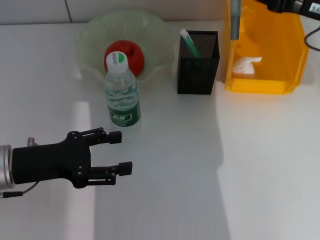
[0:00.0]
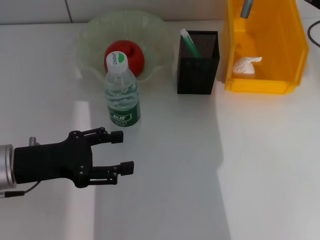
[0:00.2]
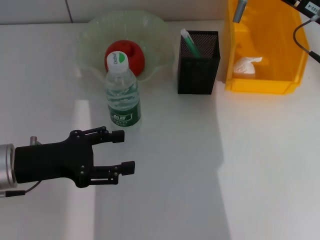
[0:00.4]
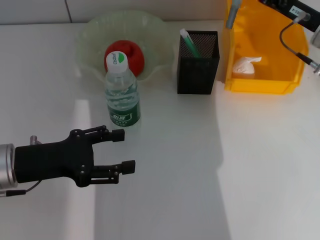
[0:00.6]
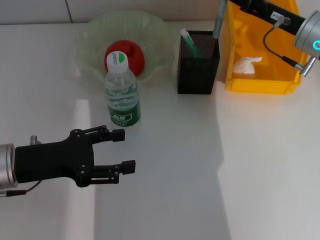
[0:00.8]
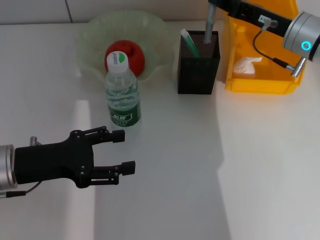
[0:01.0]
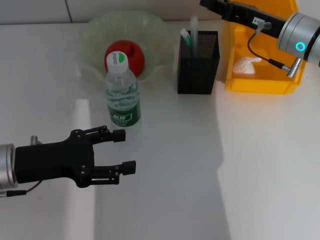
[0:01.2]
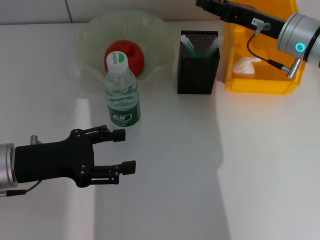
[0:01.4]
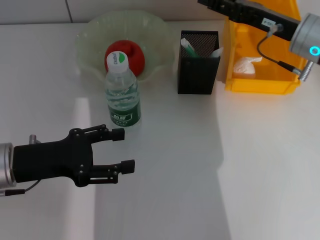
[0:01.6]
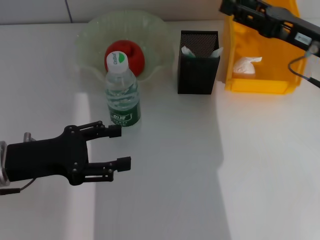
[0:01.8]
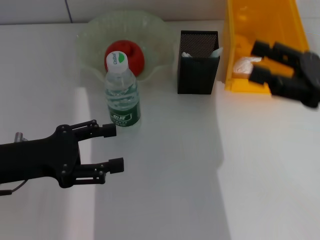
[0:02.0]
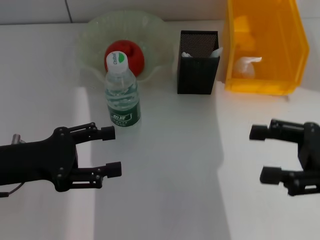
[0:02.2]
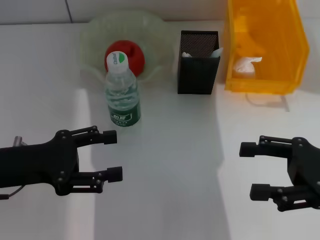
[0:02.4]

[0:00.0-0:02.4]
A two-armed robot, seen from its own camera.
Step, 0:00.0 to 0:01.8: Place the gray glue into the pen holder with the right hand.
0:00.0 to 0:01.2: The right gripper travels downward and forward by some 10 cm.
0:01.2 to 0:02.4: The right gripper moves backward and to the right, approximately 20 cm, and opens up.

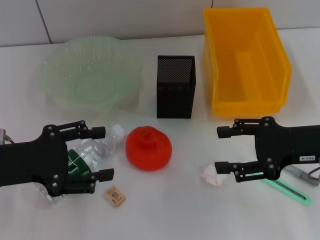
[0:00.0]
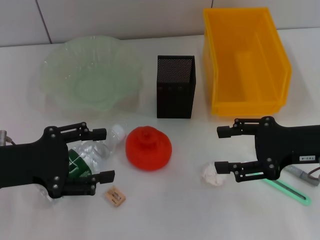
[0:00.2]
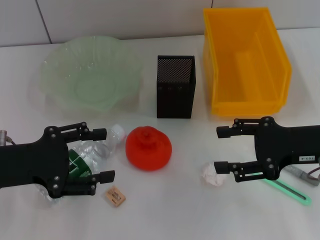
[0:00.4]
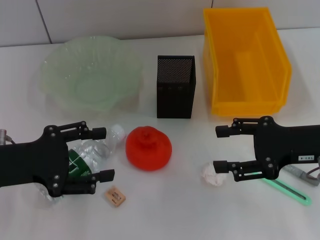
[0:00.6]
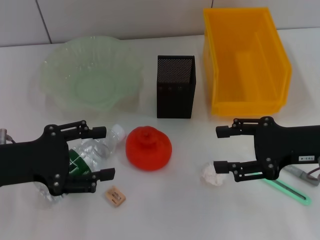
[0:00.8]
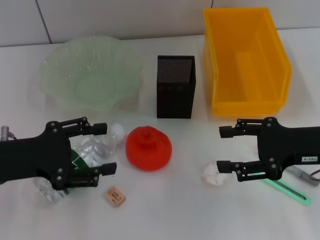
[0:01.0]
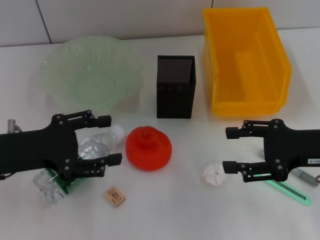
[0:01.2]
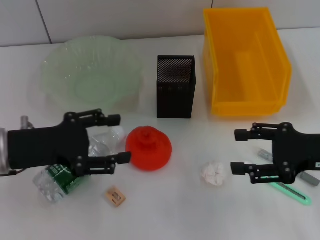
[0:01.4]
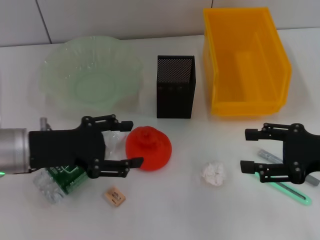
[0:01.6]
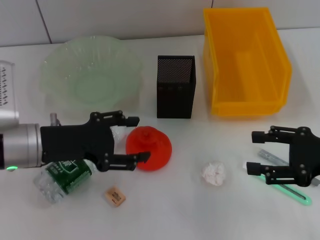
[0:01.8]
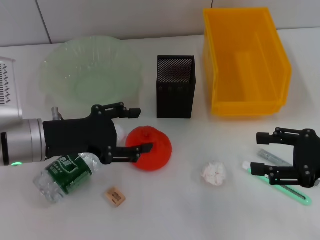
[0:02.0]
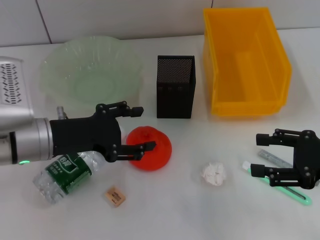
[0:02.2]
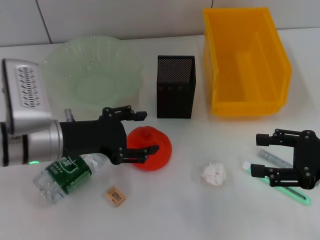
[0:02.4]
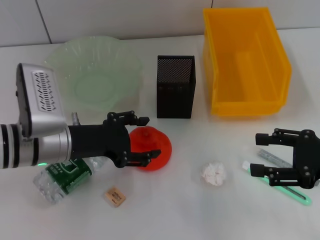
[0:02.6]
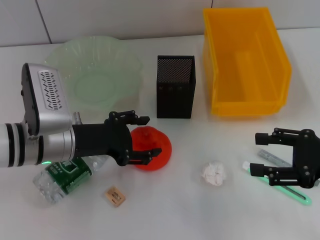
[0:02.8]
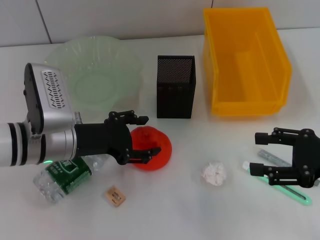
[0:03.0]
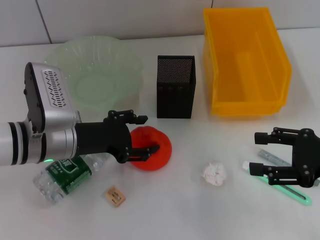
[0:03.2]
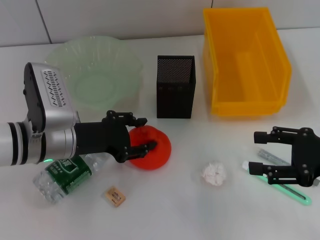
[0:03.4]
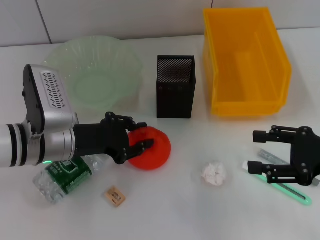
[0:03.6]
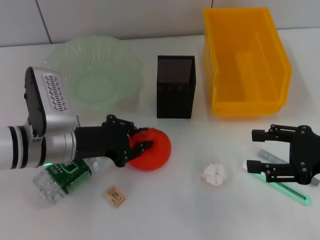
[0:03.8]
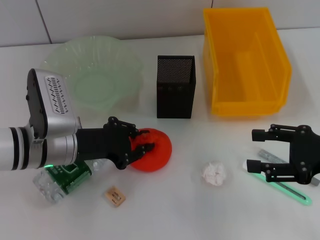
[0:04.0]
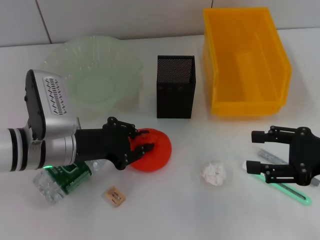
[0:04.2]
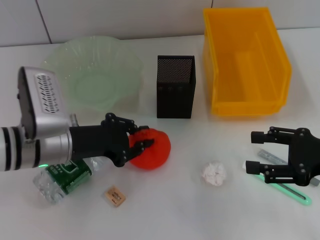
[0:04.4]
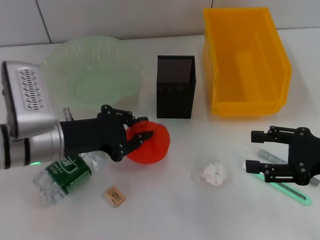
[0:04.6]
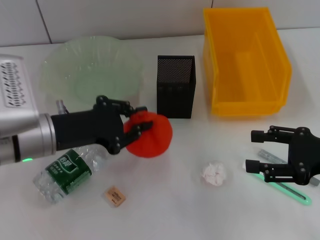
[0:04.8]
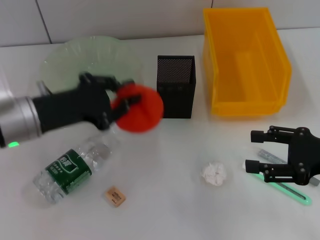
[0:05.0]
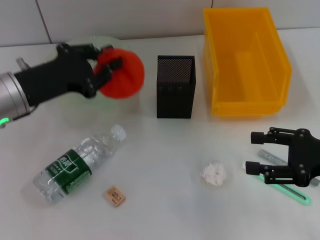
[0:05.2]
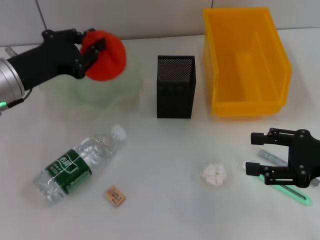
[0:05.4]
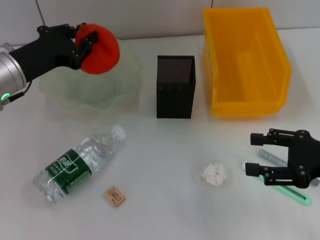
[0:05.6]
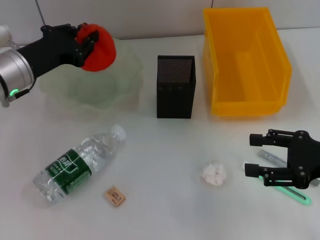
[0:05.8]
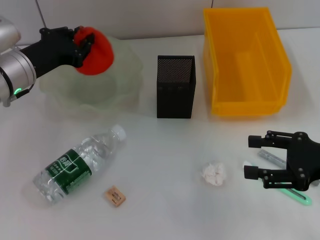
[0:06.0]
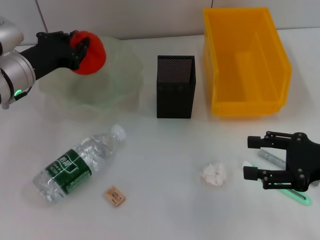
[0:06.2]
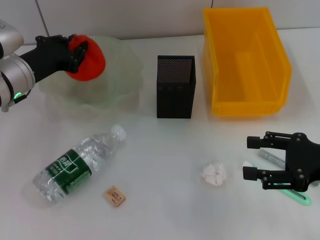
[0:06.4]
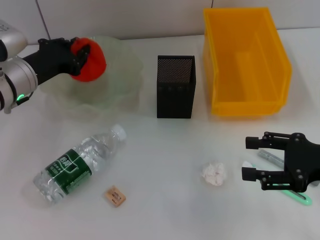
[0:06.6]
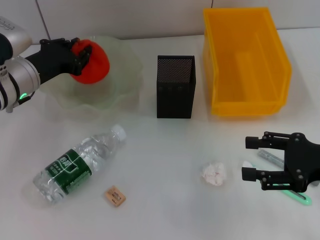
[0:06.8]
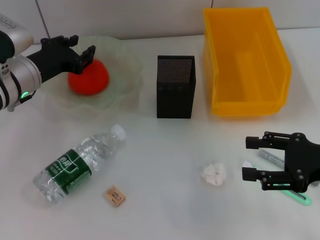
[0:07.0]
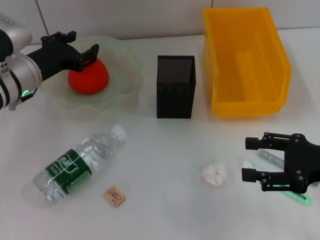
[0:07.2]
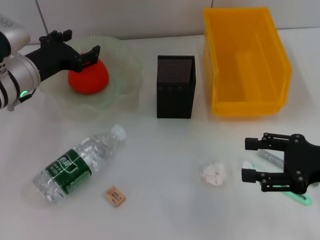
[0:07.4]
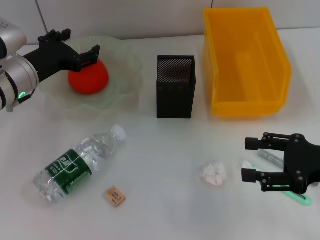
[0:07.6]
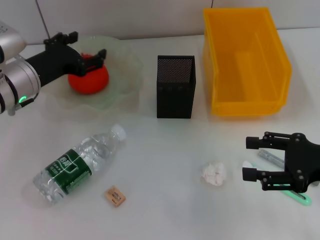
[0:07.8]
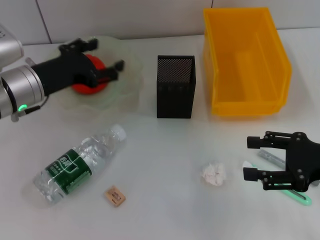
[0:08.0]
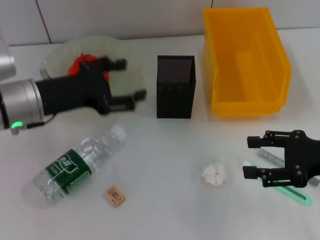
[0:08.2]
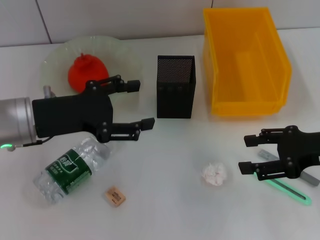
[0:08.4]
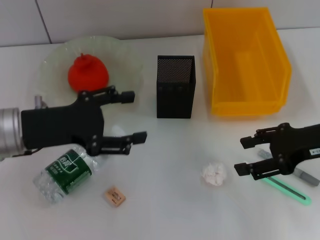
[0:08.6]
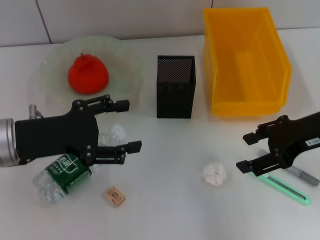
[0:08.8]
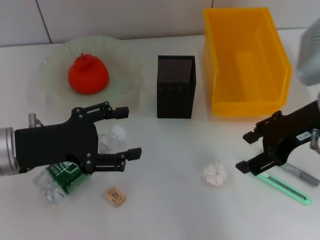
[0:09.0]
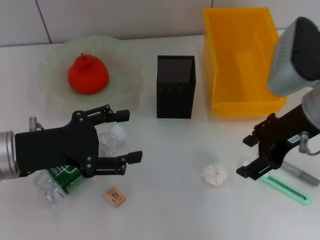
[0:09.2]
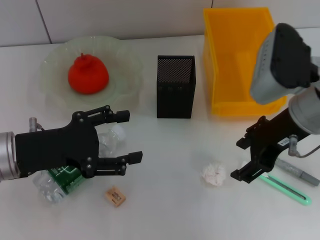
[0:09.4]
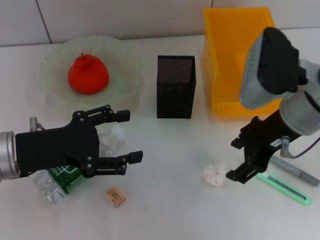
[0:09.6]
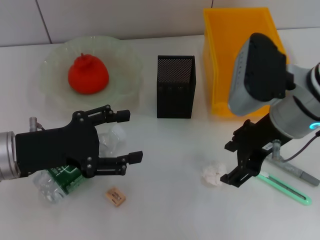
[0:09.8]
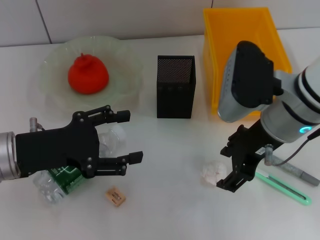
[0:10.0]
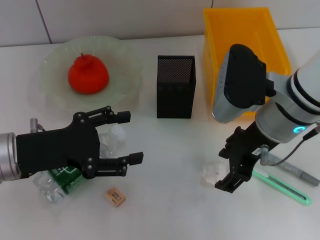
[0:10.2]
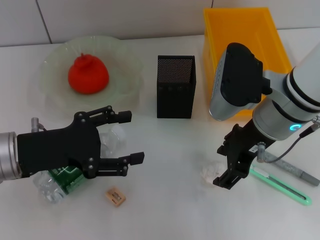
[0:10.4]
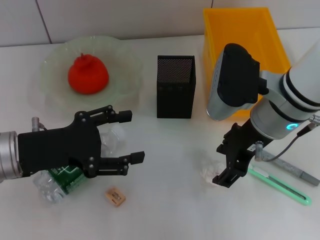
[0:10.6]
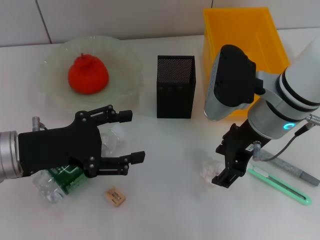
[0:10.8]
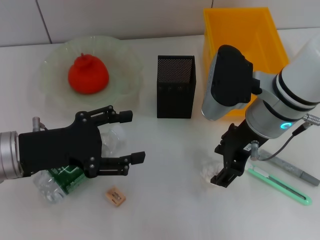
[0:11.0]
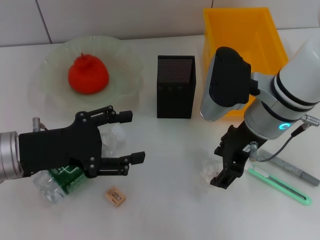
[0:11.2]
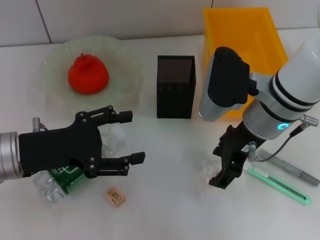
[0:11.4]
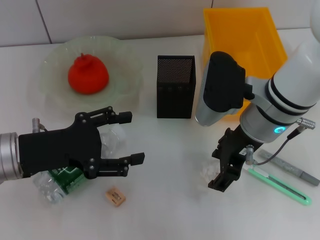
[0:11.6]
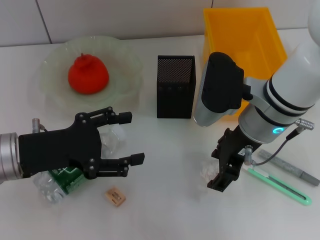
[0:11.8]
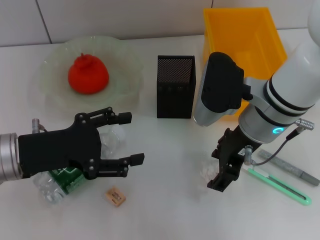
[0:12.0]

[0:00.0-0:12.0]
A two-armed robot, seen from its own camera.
Step, 0:00.0 to 0:04.4: Grab the orange with the left hand.
Step, 0:04.6 to 0:07.4: Place the orange into the fruit bowl with the left hand.
0:00.0 to 0:01.6: The left gripper ends up some 5 cm from where it was.
0:01.6 to 0:03.0: The left gripper changes place by roughly 5 cm.
0:03.0 to 0:04.4: The left gripper closes.
0:04.4 to 0:06.0: The left gripper travels forward by about 10 cm.
0:06.0 to 0:07.6: The left gripper opens.
0:07.6 to 0:09.0: The right gripper travels upward, forward and to the left by approximately 15 cm; the left gripper travels backward by roughly 10 cm.
0:09.0 to 0:10.4: The right gripper shifts roughly 10 cm to the left.
0:10.4 to 0:12.0: The grippers make only small movements.

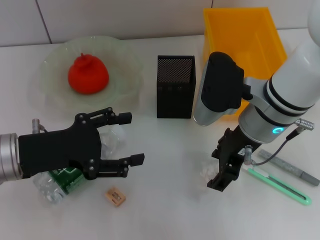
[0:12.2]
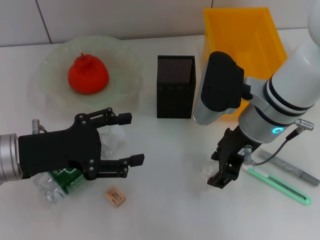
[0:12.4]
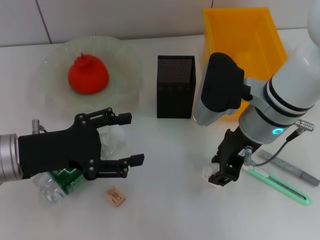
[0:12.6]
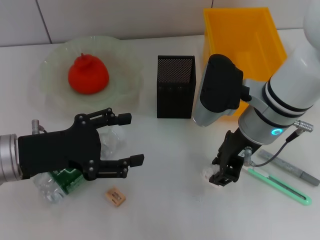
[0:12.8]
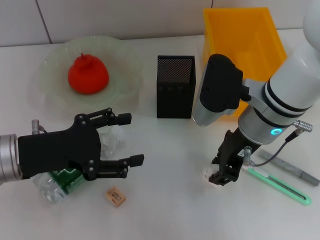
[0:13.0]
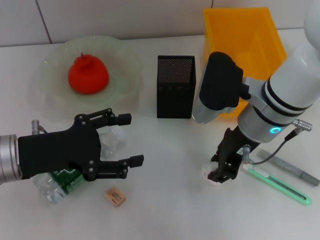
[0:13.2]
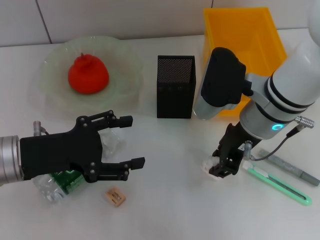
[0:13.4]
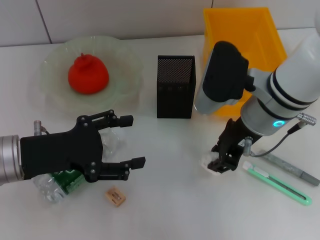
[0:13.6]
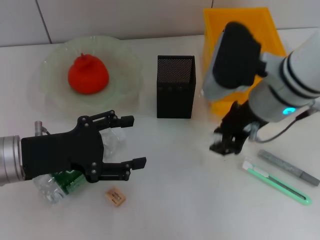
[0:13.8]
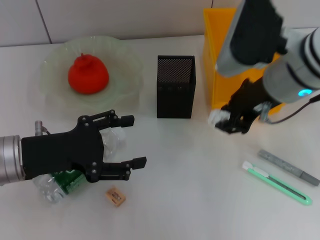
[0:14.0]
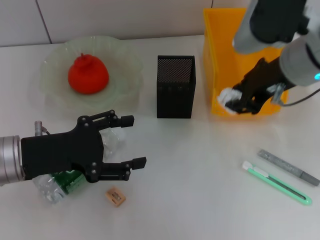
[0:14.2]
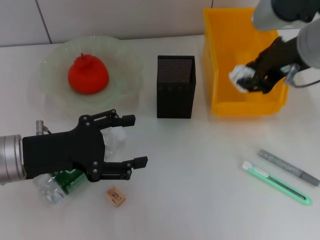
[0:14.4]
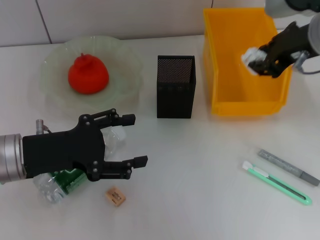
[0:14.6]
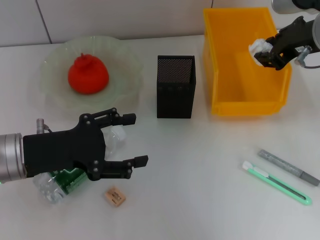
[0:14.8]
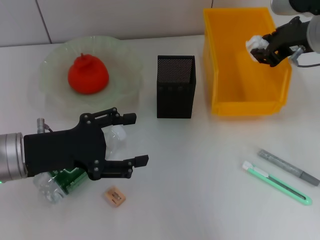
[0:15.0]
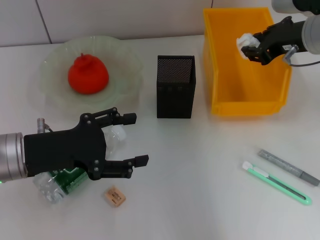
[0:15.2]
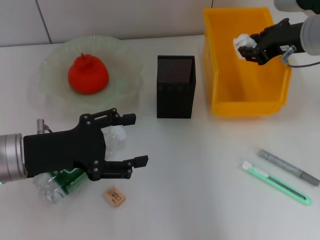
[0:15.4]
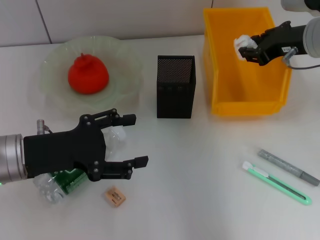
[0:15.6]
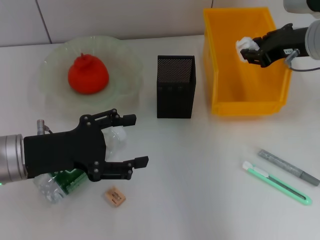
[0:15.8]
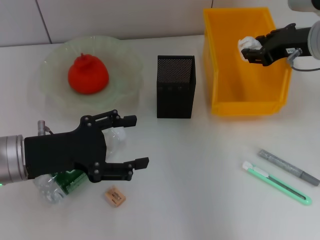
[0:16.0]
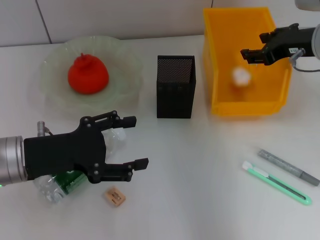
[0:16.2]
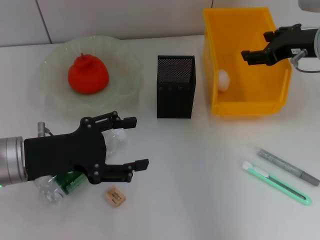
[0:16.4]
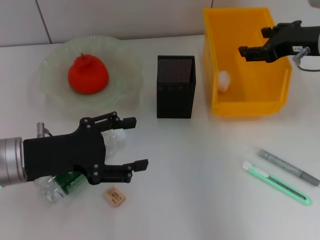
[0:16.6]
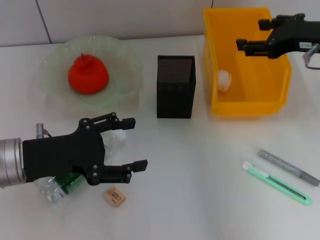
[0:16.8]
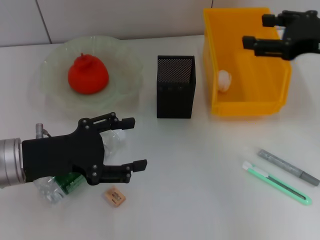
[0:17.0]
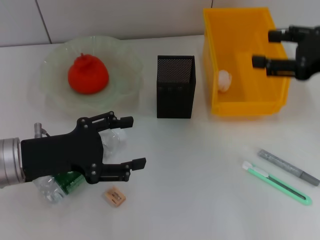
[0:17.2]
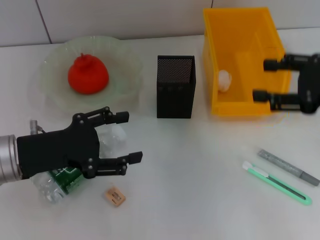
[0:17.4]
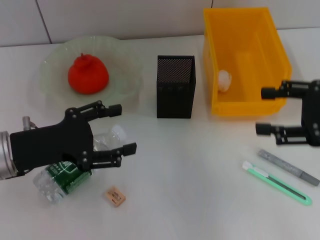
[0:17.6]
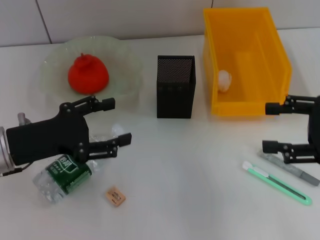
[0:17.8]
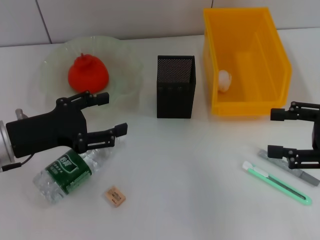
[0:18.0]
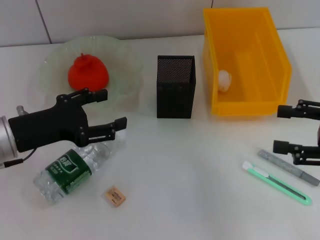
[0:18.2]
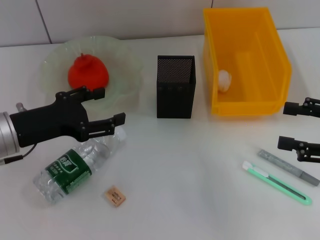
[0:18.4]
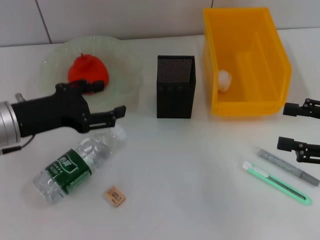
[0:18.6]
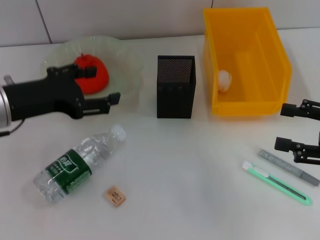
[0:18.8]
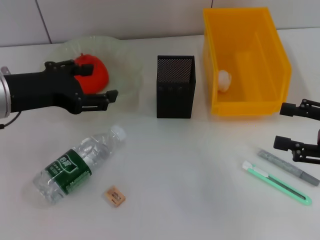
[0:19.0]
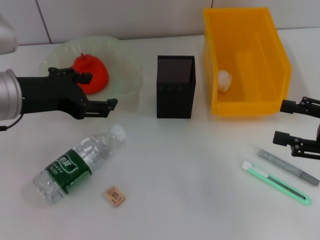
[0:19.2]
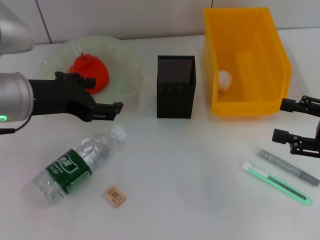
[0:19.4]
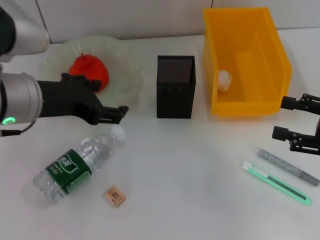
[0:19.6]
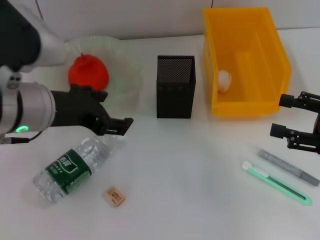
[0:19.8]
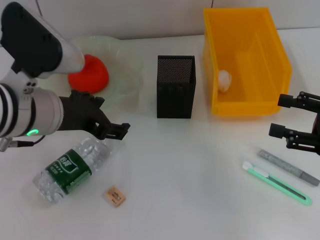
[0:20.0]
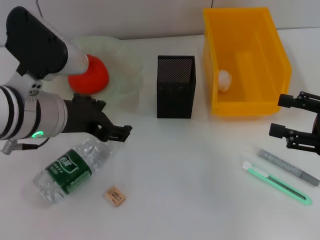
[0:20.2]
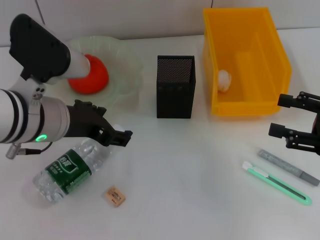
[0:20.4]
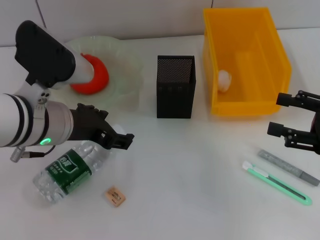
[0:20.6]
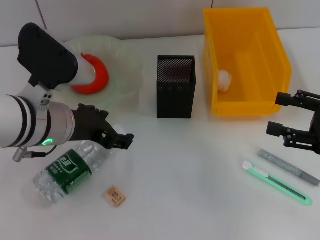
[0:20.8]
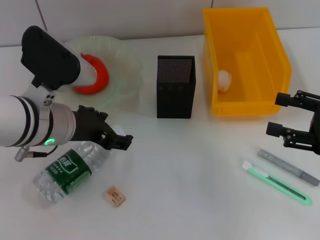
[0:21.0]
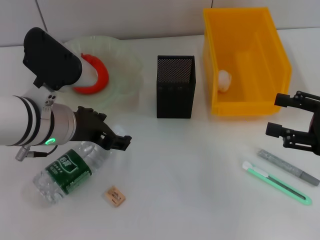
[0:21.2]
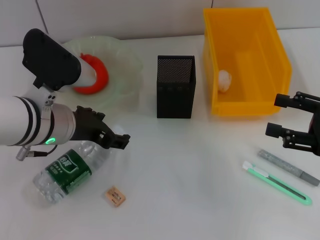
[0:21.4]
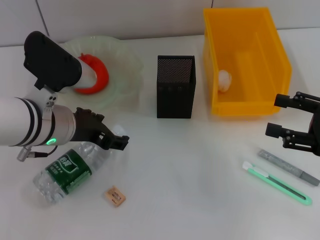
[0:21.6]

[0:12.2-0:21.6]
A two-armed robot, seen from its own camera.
Step, 0:12.8 to 0:16.2: Place the paper ball into the trash can with the right hand.
0:12.2 to 0:13.8: The right gripper closes its fingers.
0:13.8 to 0:15.4: The right gripper travels to the right and forward by roughly 10 cm.
0:15.4 to 0:17.0: The right gripper is displaced backward and to the right by about 10 cm, and opens.
0:17.0 to 0:18.4: The right gripper is displaced backward, downward and to the right by about 15 cm.
0:18.4 to 0:20.0: The left gripper heads to the right and upward, covering some 10 cm.
0:20.0 to 0:21.6: The left gripper shifts by approximately 5 cm.
